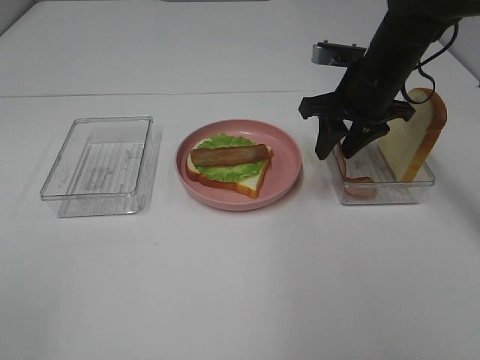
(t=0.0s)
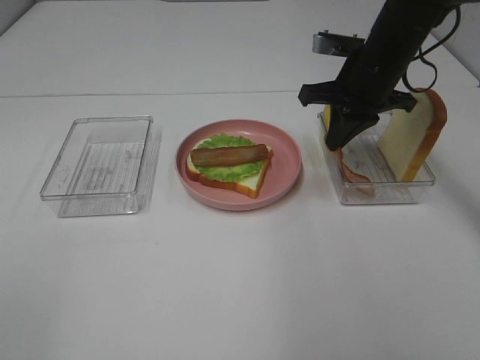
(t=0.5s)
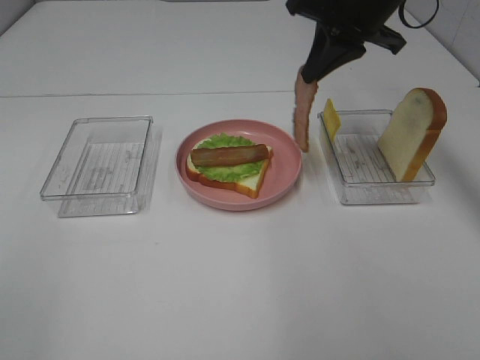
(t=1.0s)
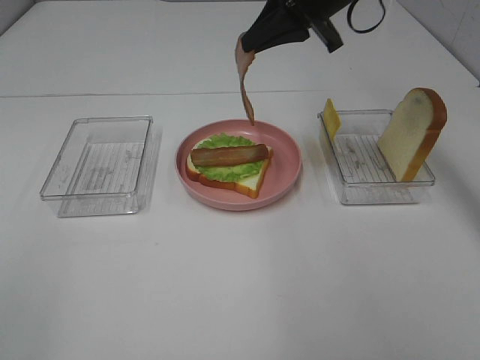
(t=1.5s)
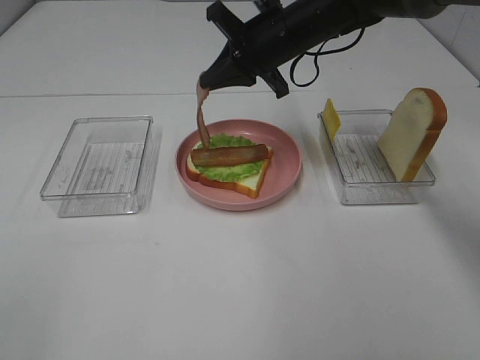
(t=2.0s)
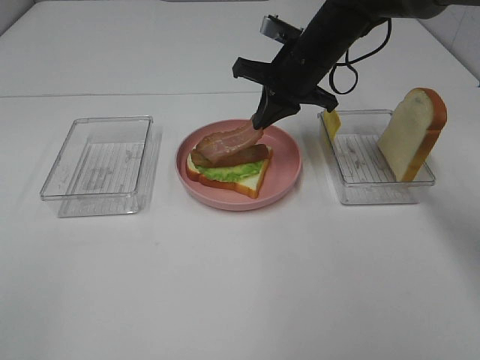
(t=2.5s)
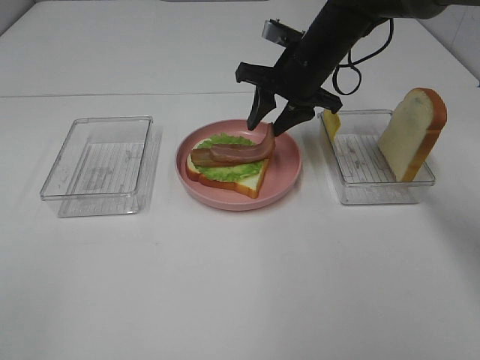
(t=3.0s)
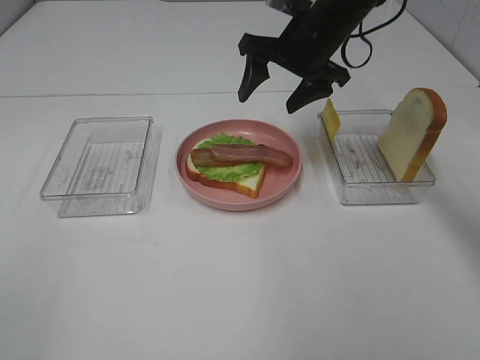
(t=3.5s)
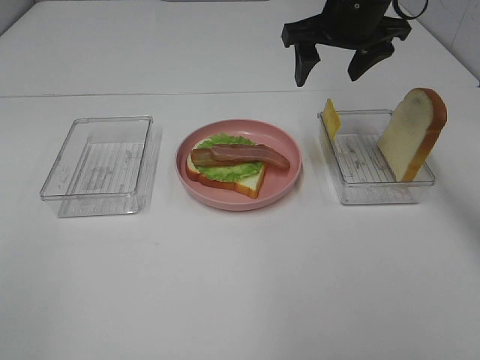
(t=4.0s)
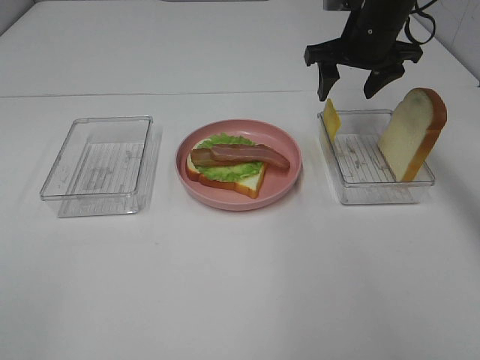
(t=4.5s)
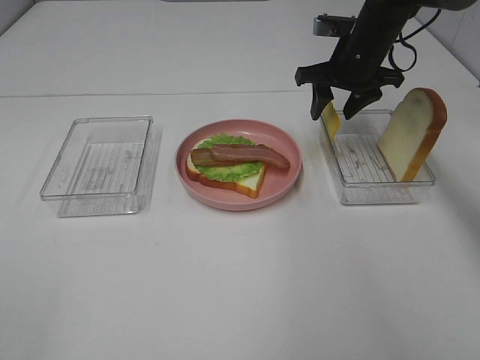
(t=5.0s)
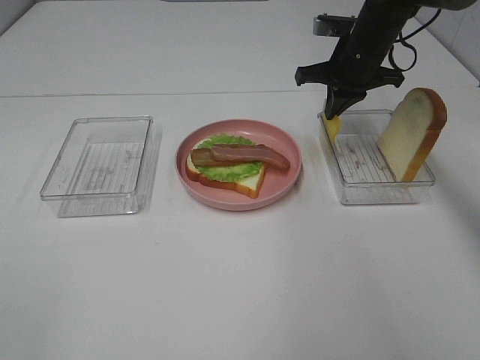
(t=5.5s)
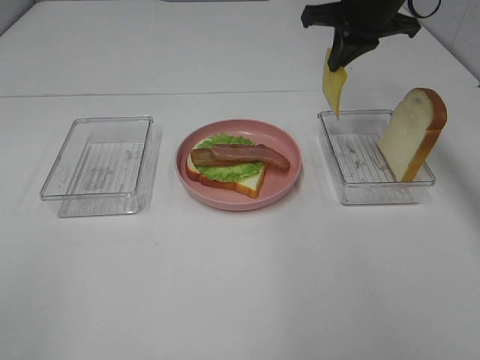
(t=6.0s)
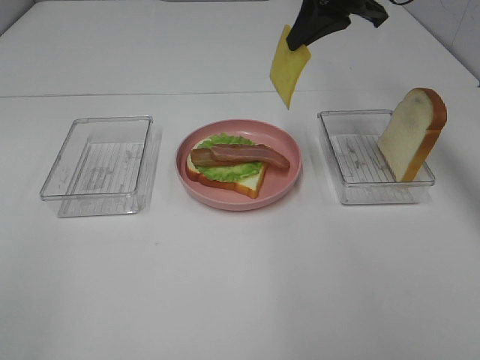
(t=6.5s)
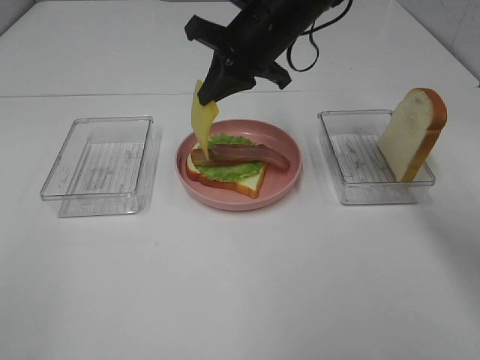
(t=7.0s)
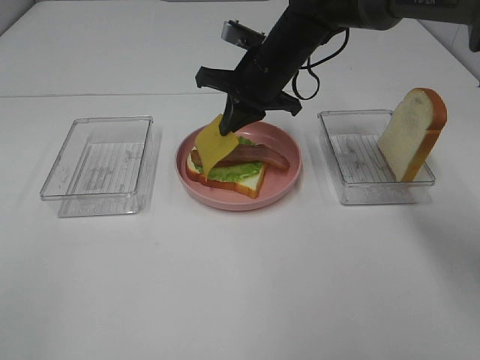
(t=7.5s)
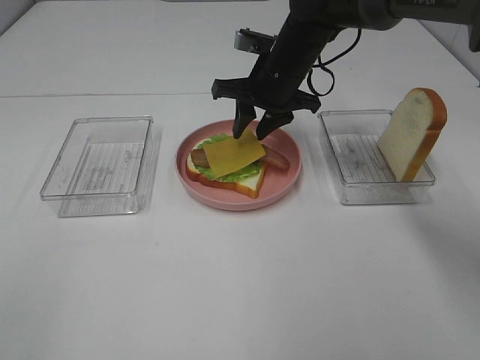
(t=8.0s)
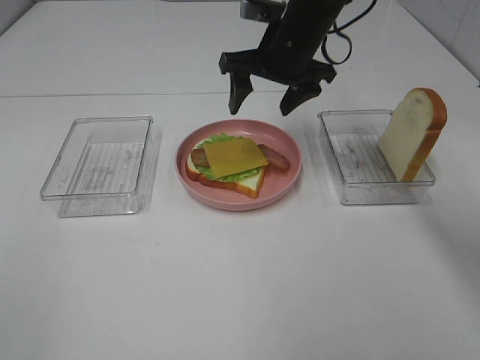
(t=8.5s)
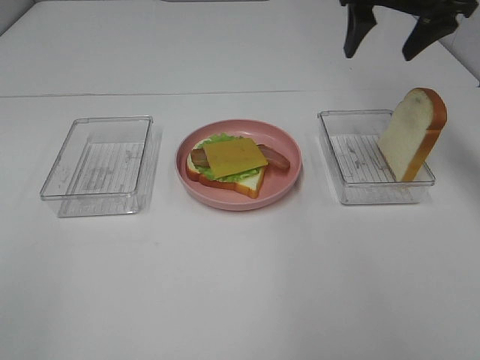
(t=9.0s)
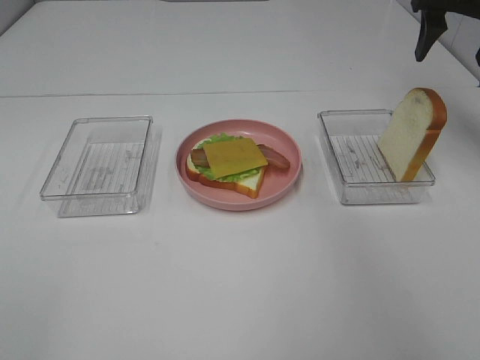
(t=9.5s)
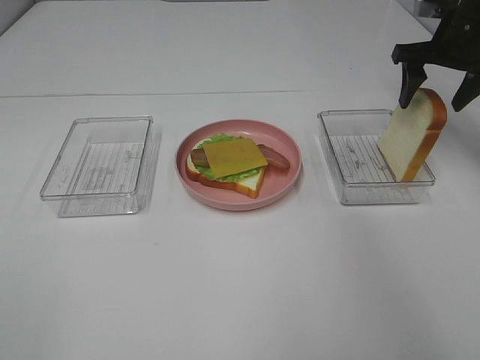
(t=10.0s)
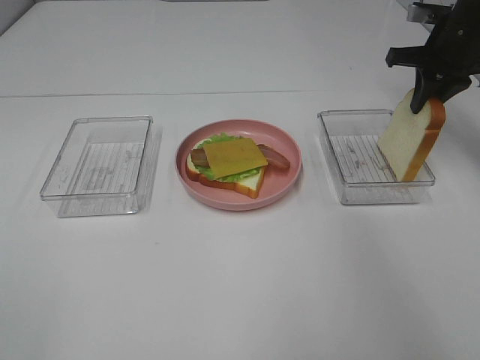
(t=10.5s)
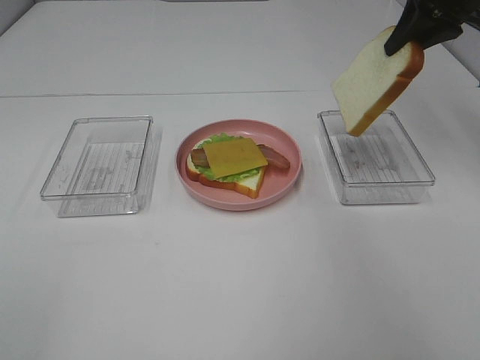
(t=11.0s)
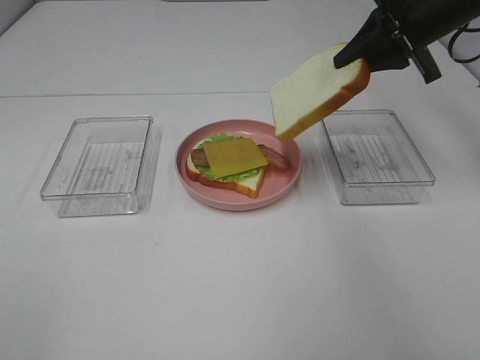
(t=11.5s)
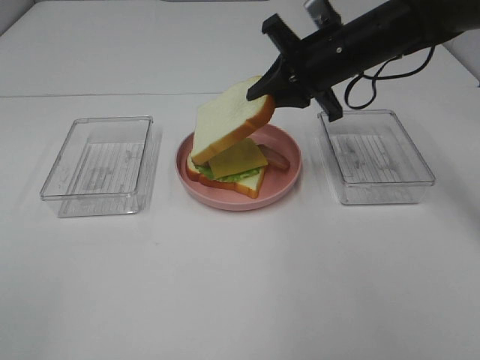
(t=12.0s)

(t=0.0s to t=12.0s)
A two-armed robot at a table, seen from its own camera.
Task of the whole recording: Make sandwiches.
Step, t=1.0s - t=3.5s: Right hand:place bacon on bacon.
Step, t=4.0s - t=5.5s: Right hand:grab the cheese slice.
Step, t=6.0s - t=8.0s: Right hand:place the cheese slice on top of the bacon.
Step, t=8.5s - t=10.5s: Right hand:grab the bread slice.
t=0.0s - t=2.0s: The right gripper heads to the left, covering approximately 10 cm, goes upward and returns, about 10 cm each way, and closes its fingers.
t=2.0s - t=4.0s: The right gripper heads to the right and upward, covering approximately 10 cm, and opens up.
t=4.0s - t=6.0s: The right gripper travels downward and back again, some 10 cm each way, and closes its fingers.
t=6.0s - t=8.0s: The right gripper is displaced to the left and downward by approximately 15 cm, and opens.
t=8.0s - t=10.0s: The right gripper goes about 25 cm to the right.
t=10.0s - t=12.0s: The right gripper travels to the left by approximately 15 cm, and closes.

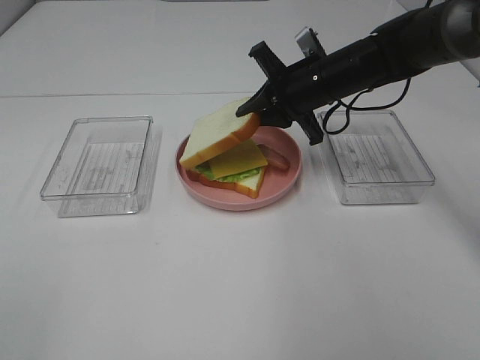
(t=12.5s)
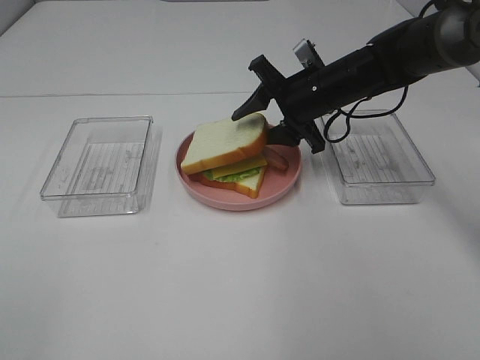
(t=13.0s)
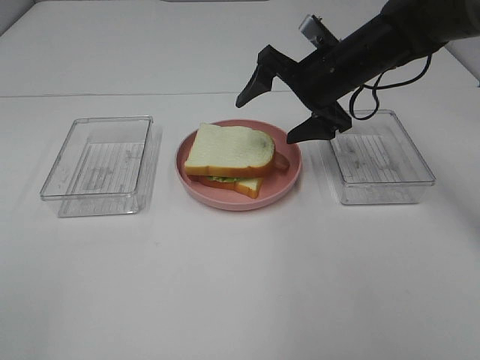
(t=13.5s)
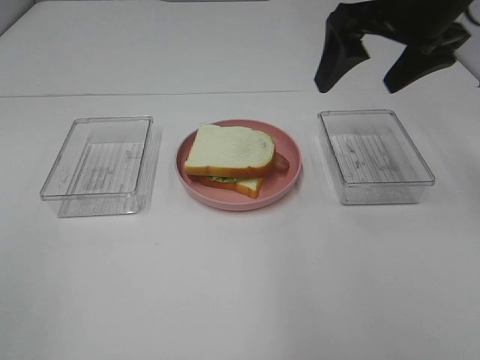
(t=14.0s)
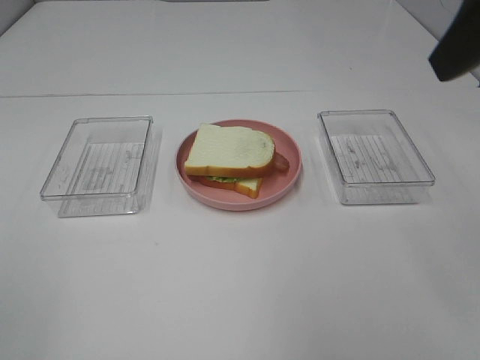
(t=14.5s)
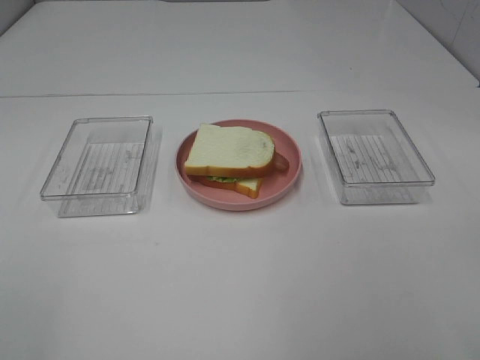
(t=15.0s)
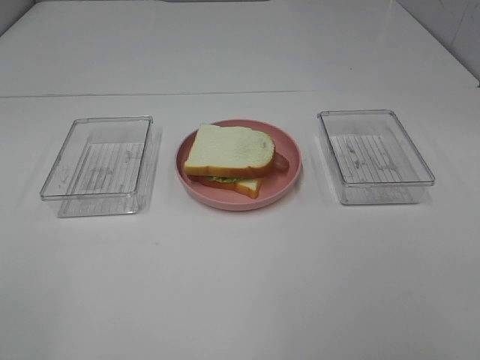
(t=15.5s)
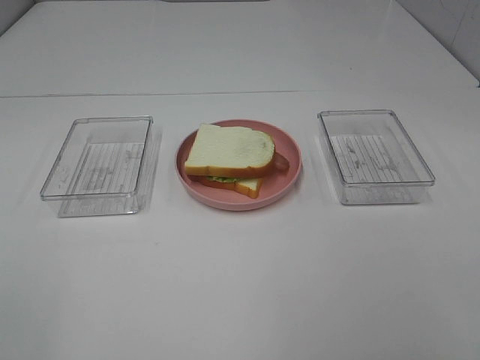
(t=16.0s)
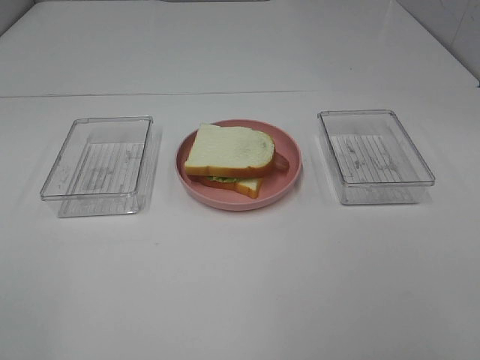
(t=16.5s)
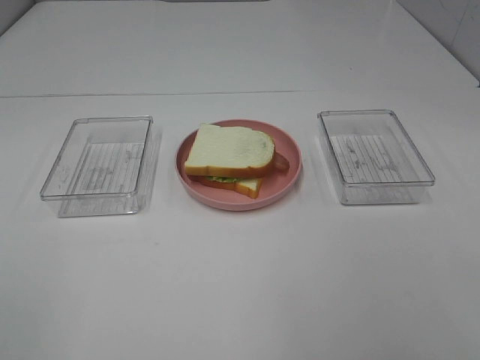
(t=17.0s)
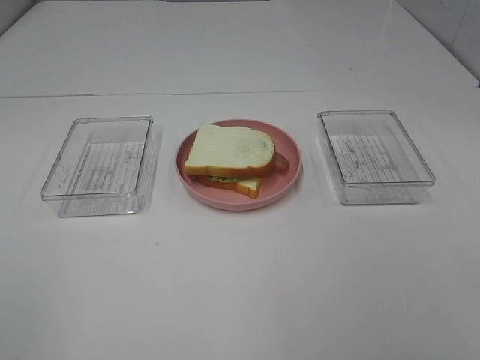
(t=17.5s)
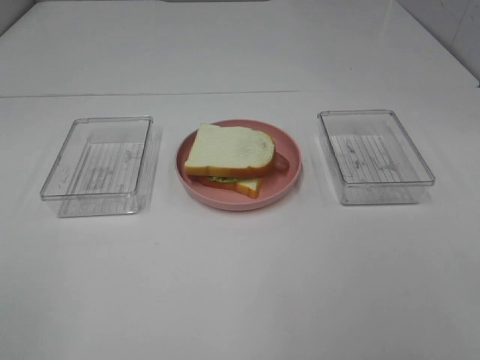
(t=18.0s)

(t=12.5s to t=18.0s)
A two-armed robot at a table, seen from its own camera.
Task of the whole recording: Make sandwiches.
t=12.5s - t=14.5s: The right gripper shifts roughly 35 cm upward, backward and to the right, and opens up.
t=14.5s - t=16.0s: The right gripper goes some 20 cm backward and downward.

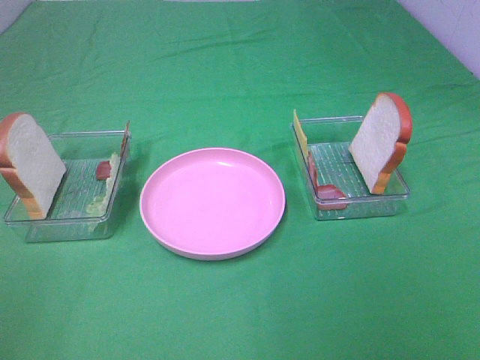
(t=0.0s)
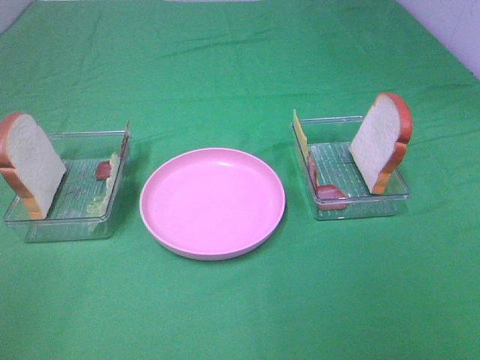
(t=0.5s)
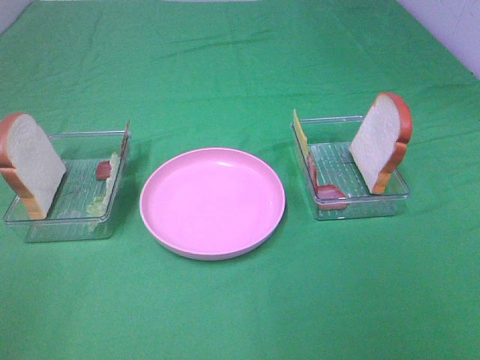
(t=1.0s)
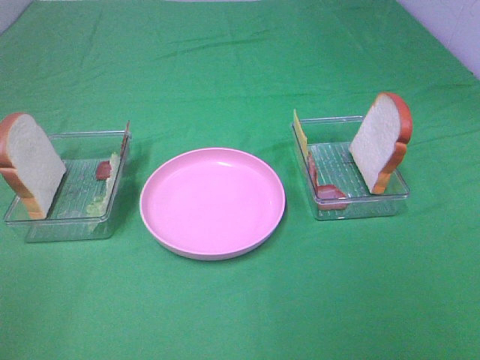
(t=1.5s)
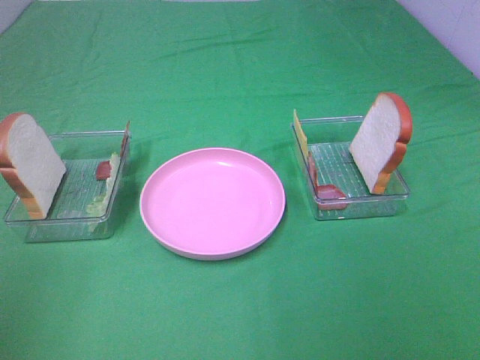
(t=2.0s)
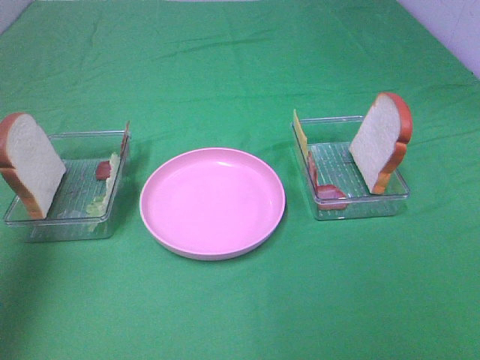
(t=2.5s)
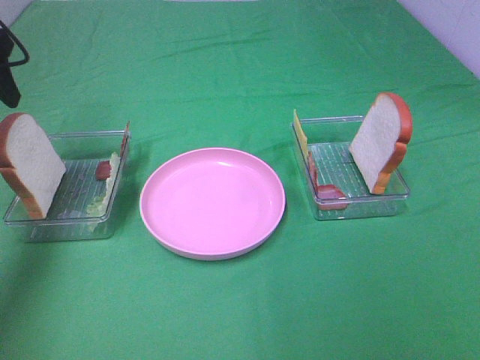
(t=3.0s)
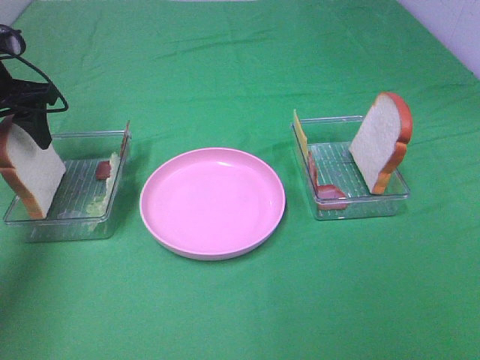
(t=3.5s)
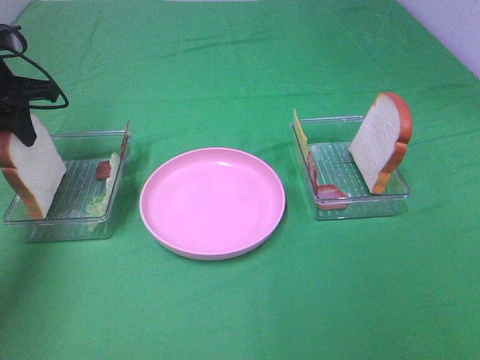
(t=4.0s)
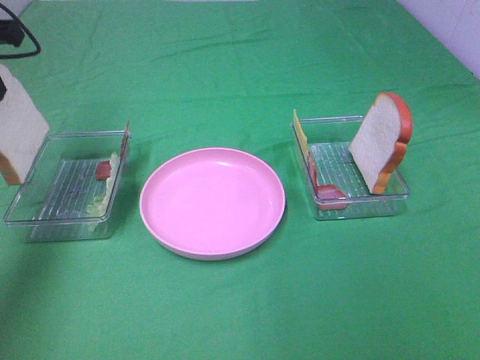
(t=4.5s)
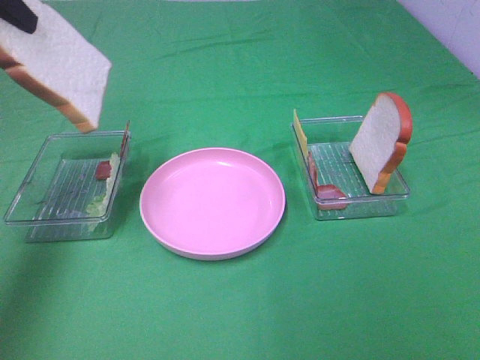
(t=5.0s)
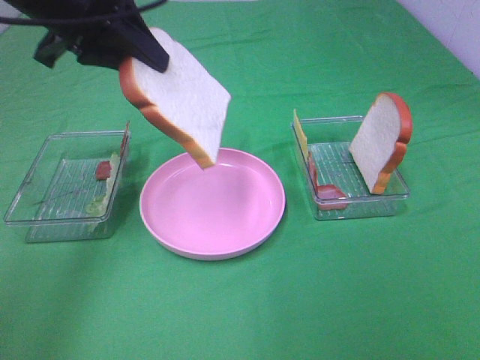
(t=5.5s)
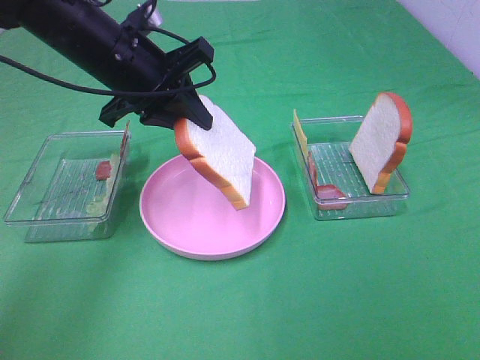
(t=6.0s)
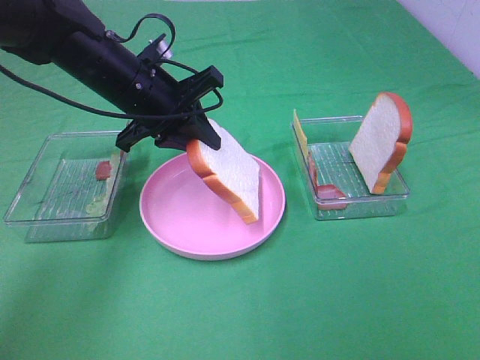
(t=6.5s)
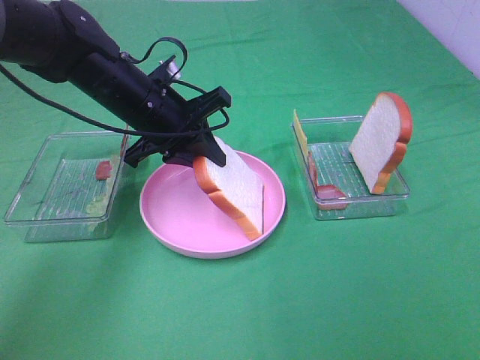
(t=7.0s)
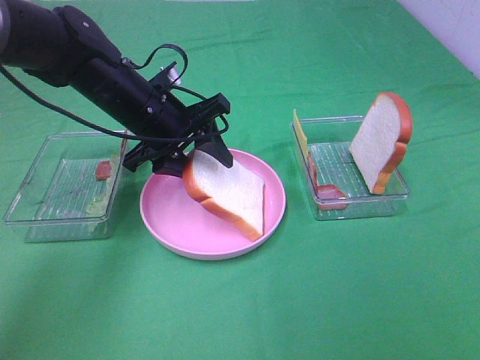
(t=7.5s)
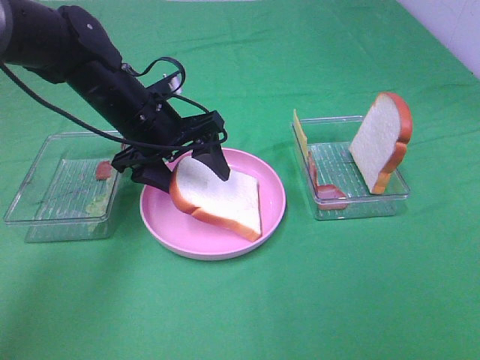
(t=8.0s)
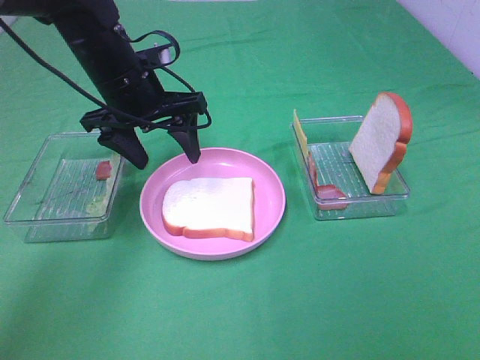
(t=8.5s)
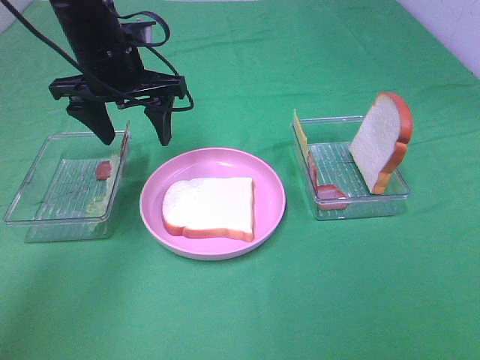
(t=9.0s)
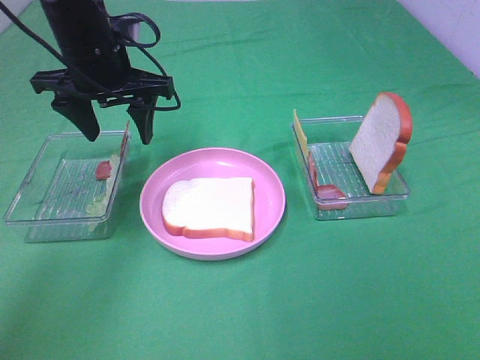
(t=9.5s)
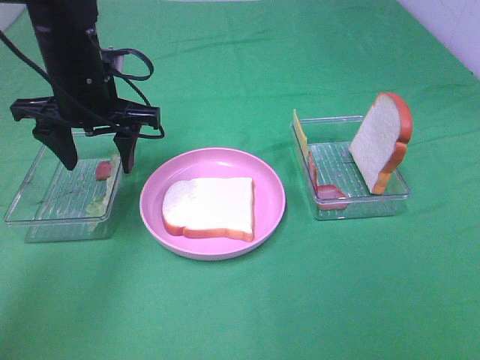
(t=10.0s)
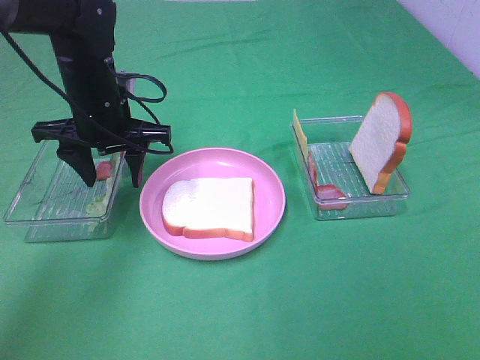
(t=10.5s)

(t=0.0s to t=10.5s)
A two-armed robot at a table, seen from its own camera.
Task of the whole recording: Make sandwiches.
Step, t=0.0s - t=4.0s: Left hand:grab the bread slice.
Step, t=4.5s - t=8.0s: Left hand:place the bread slice on the plate.
t=2.0s - t=4.0s: The left gripper is displaced forward by approximately 35 cm, and closes its fingers.
t=4.0s - t=6.5s: The left gripper moves to the right, approximately 20 cm.
t=6.5s - t=8.5s: The left gripper opens up.
